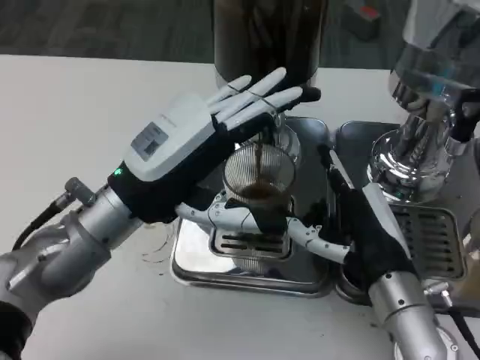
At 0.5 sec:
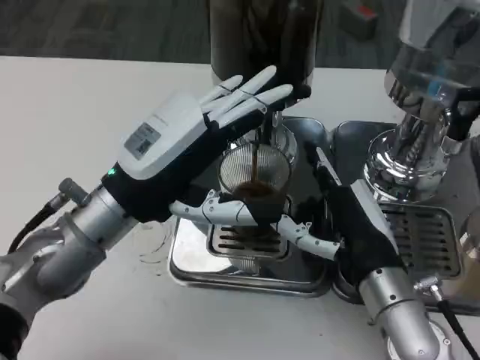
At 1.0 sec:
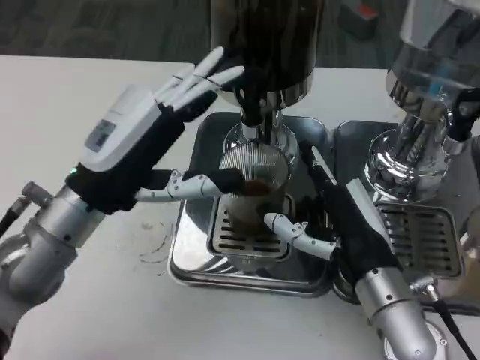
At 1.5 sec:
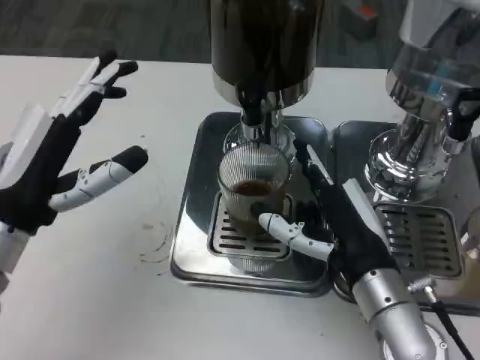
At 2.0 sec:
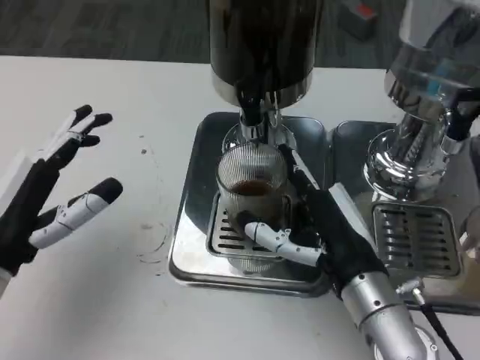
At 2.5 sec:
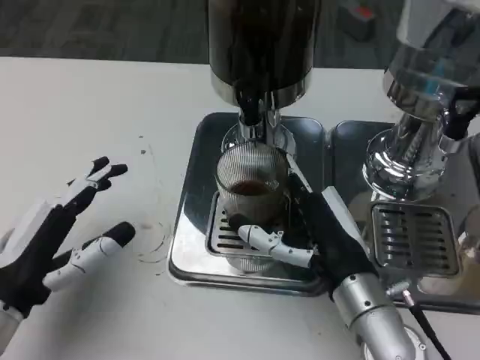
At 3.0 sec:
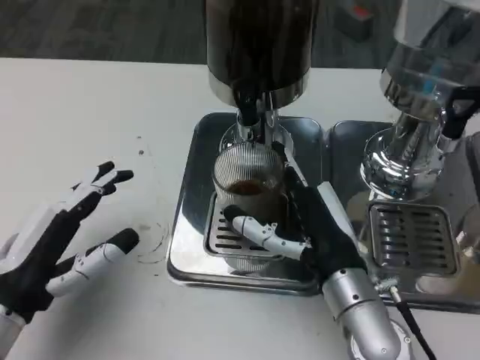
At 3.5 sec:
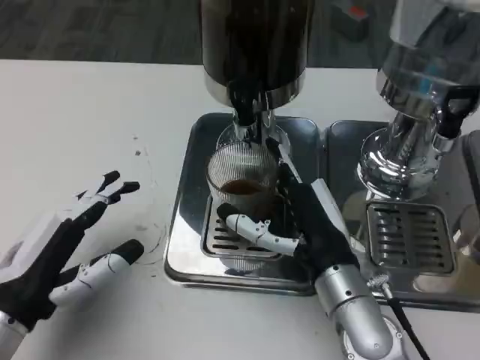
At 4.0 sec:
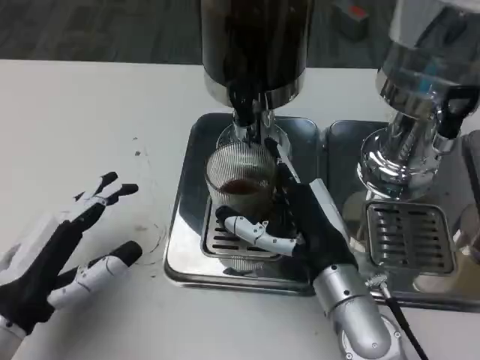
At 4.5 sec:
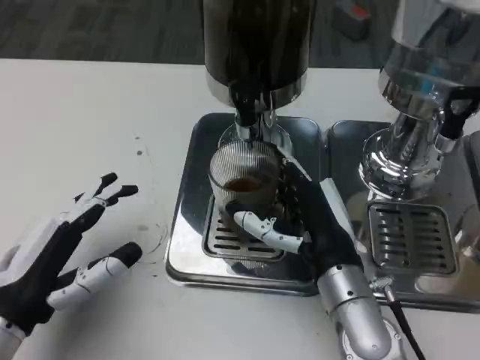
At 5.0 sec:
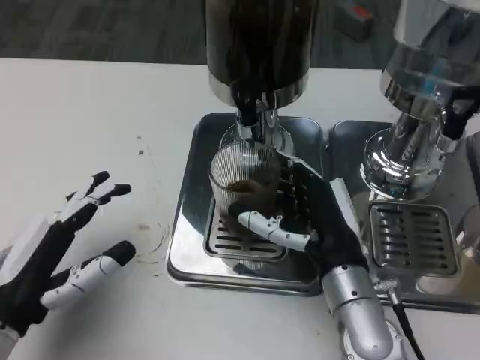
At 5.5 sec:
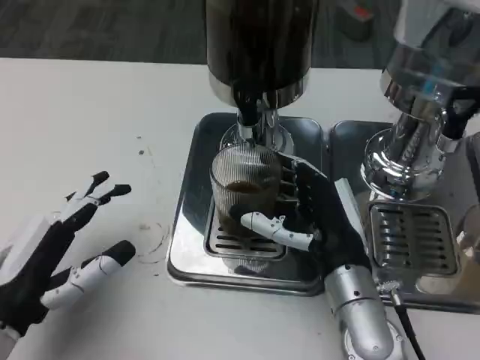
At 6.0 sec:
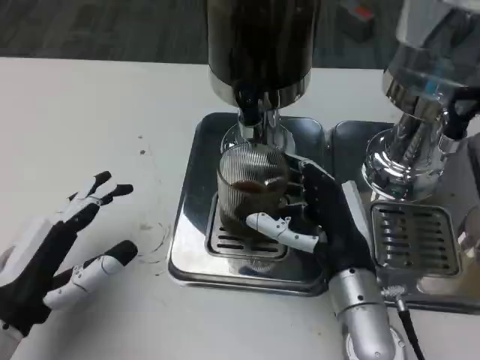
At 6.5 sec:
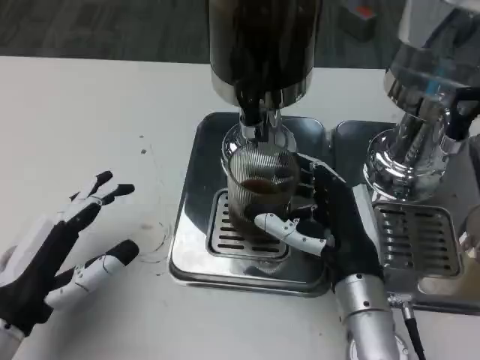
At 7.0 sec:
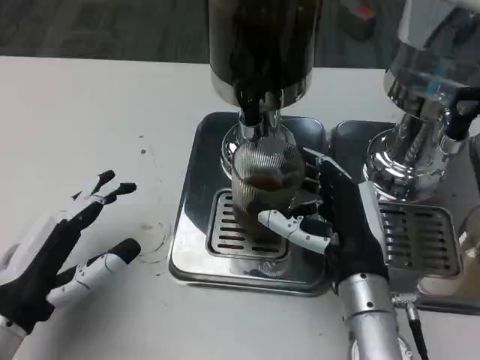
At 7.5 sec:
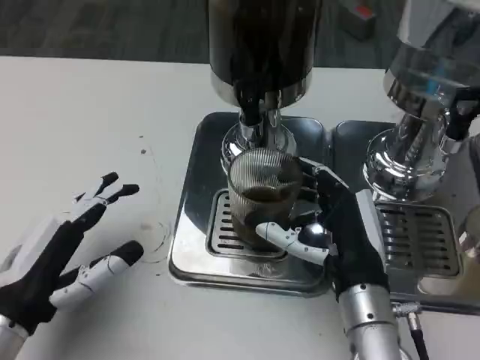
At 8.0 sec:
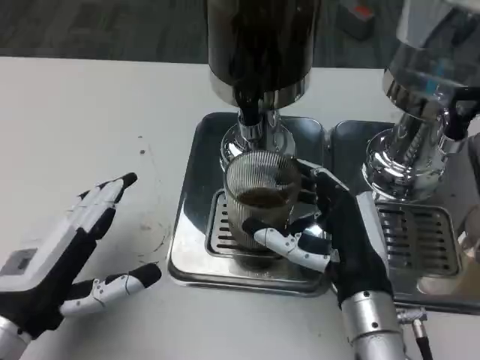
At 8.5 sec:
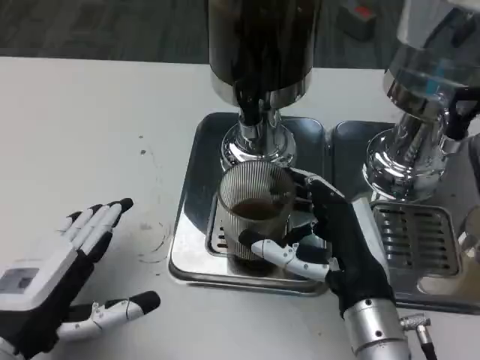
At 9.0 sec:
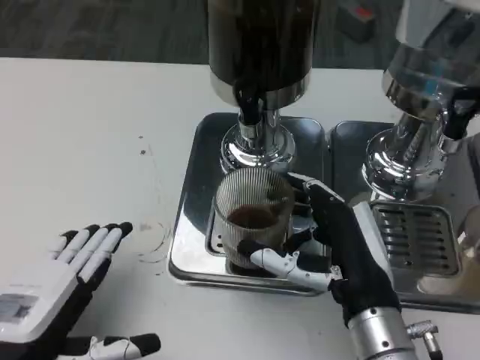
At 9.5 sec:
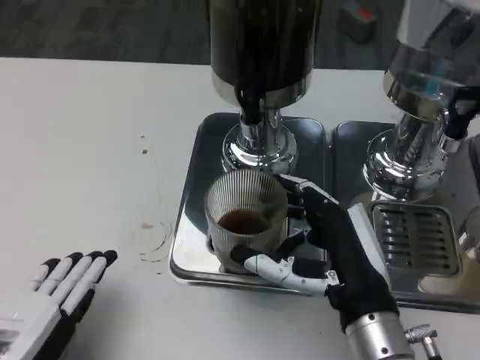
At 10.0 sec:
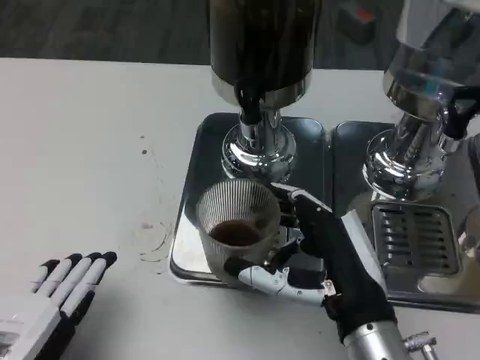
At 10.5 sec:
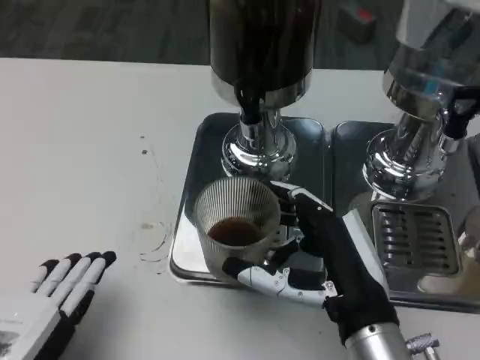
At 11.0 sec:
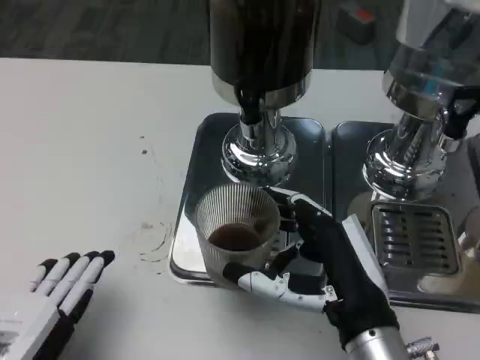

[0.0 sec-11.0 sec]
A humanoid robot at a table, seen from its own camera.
Task of the whole recording: Grasp the cup under the faucet to collect the drink, then remove the cup.
0.0 sec to 2.0 sec: The left hand heads to the left and backward, covering about 10 cm.
3.5 sec to 7.5 sec: The hands make only small movements.
7.5 sec to 9.0 sec: The left hand moves backward, roughly 5 cm.

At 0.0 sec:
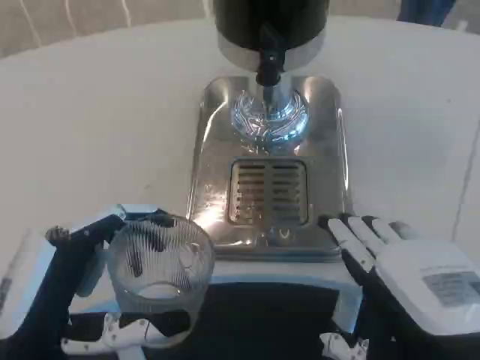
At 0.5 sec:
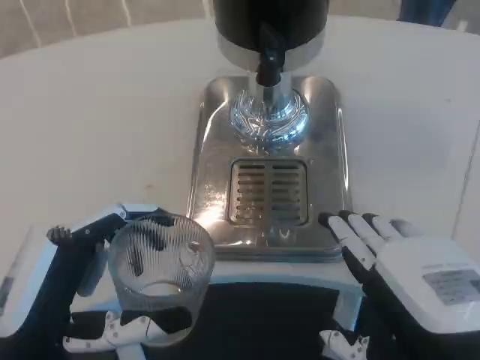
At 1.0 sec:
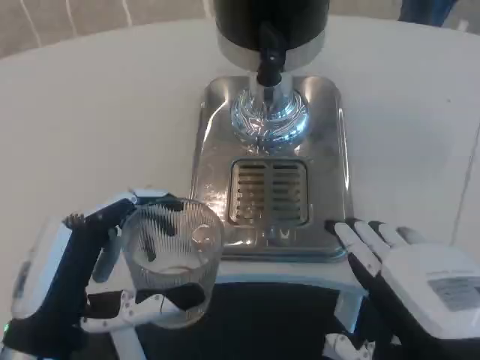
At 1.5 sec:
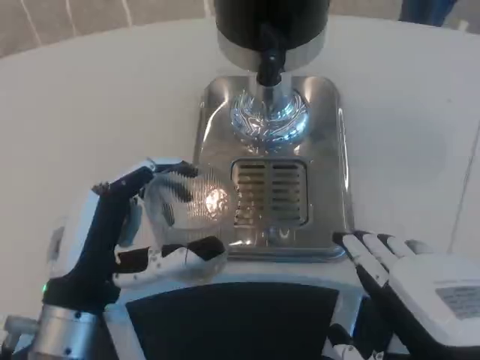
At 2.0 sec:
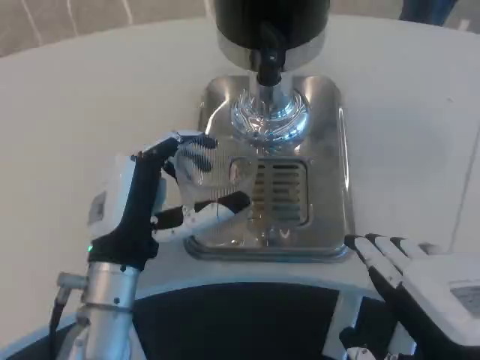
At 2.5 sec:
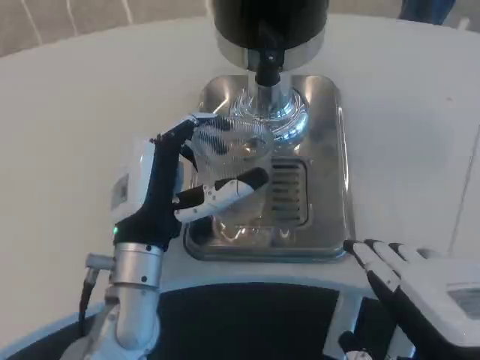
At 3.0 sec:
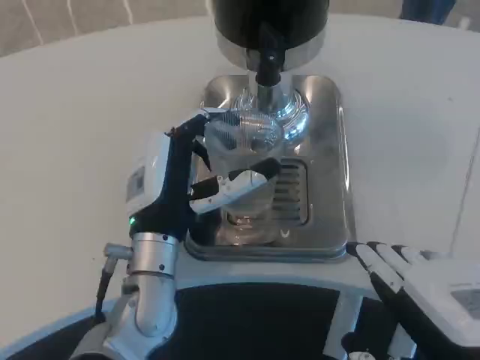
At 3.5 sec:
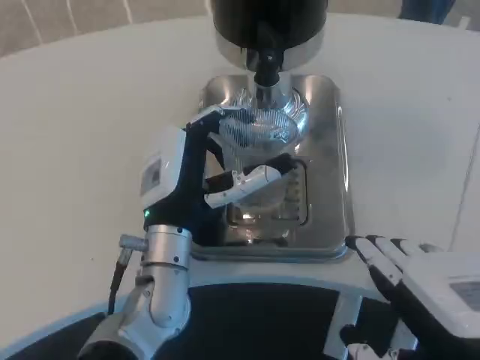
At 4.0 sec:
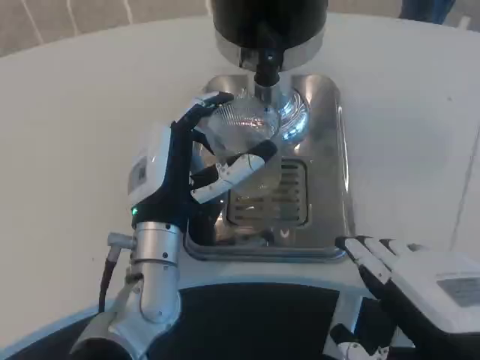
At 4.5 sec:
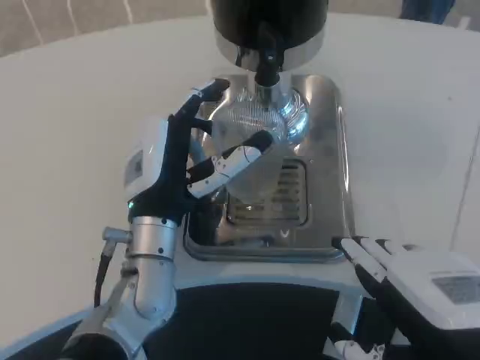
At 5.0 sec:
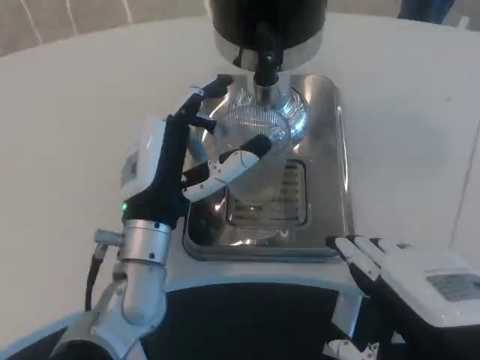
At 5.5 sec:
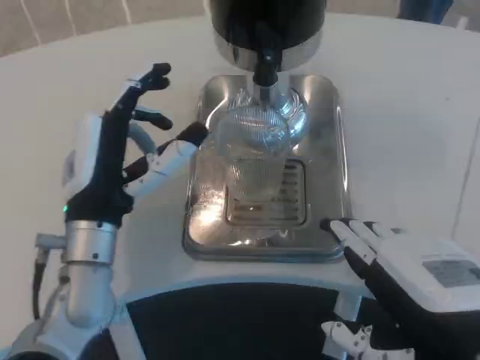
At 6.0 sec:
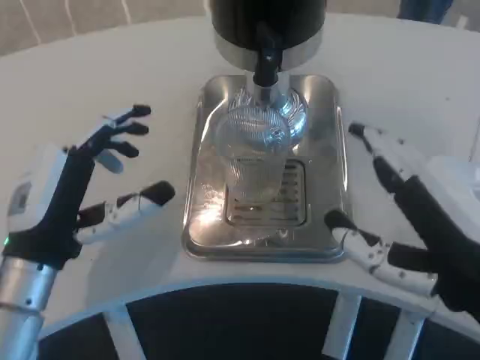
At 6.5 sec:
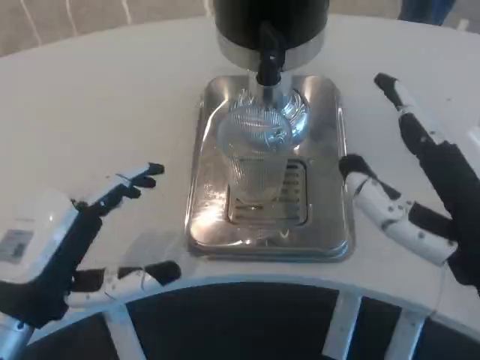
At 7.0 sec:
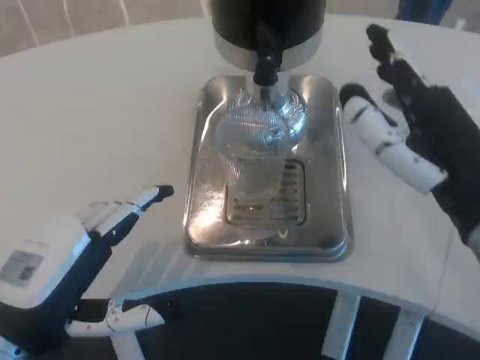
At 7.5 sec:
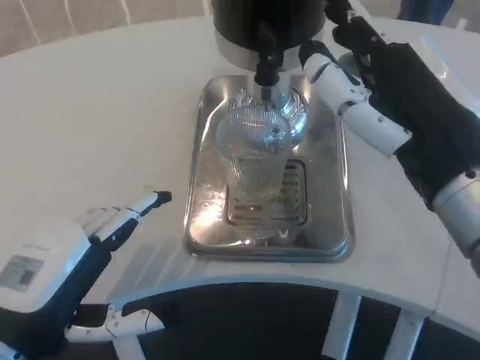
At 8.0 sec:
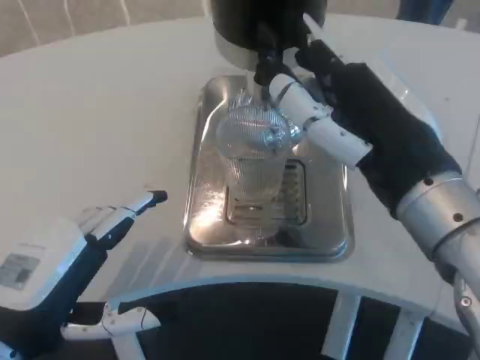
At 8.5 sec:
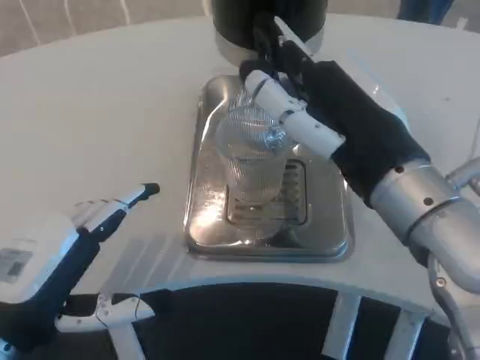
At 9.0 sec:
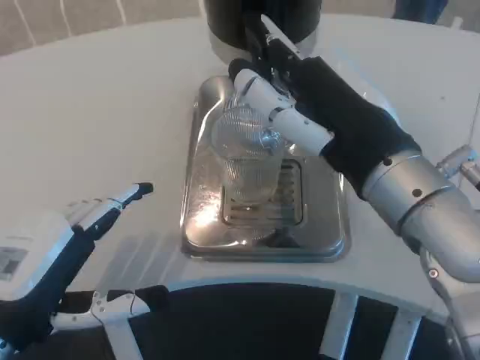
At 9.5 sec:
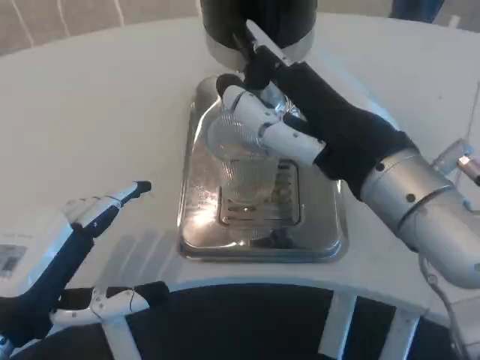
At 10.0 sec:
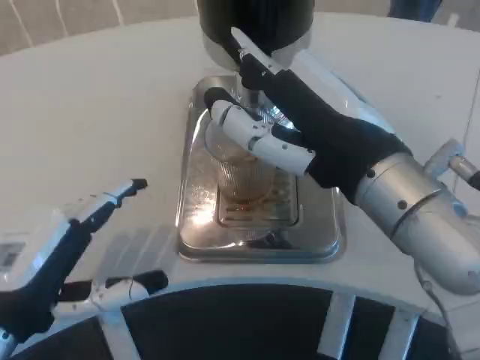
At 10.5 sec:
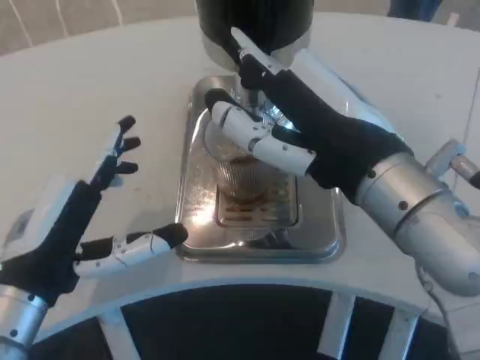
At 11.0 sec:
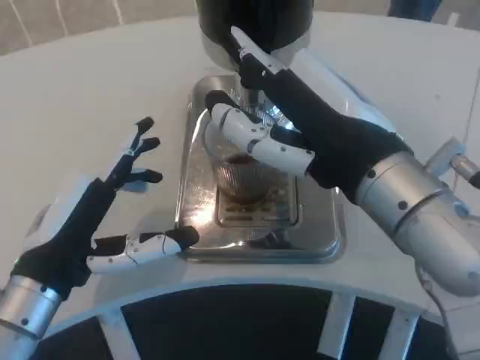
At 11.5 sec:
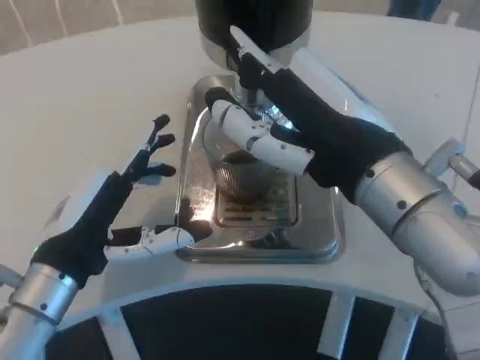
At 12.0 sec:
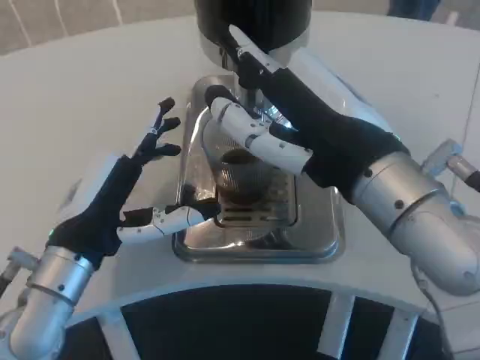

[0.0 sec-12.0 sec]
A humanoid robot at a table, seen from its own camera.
Task of the whole recording: Grasp the cup under the faucet to collect the drink, then remove the cup.
0.0 sec to 2.0 sec: The left hand moves forward and to the right, about 15 cm.
2.0 sec to 4.0 sec: The left hand moves approximately 5 cm.
4.0 sec to 6.0 sec: The left hand shifts approximately 15 cm to the left and backward.
6.0 sec to 8.0 sec: The left hand moves backward, some 5 cm. Meanwhile the right hand moves forward, some 5 cm.
10.0 sec to 12.0 sec: The left hand moves forward, roughly 5 cm.

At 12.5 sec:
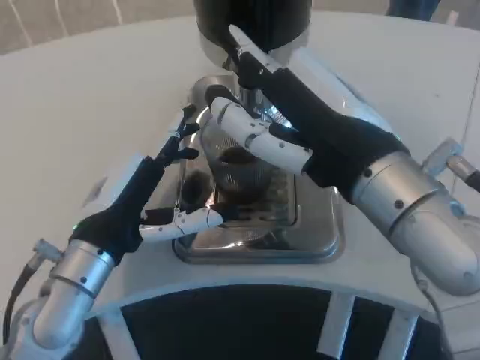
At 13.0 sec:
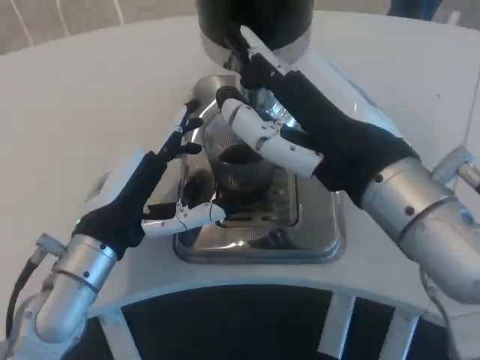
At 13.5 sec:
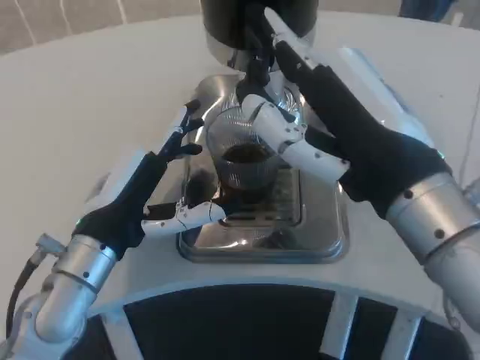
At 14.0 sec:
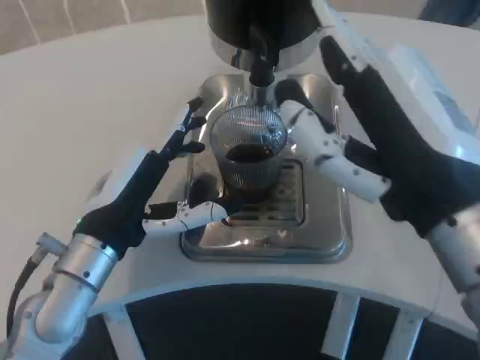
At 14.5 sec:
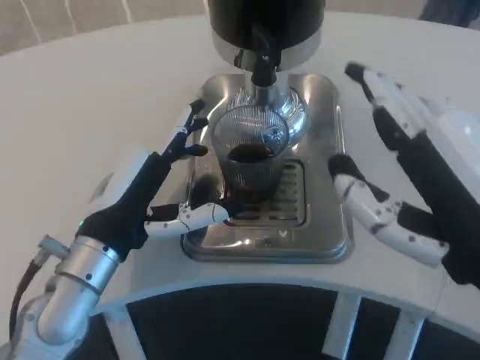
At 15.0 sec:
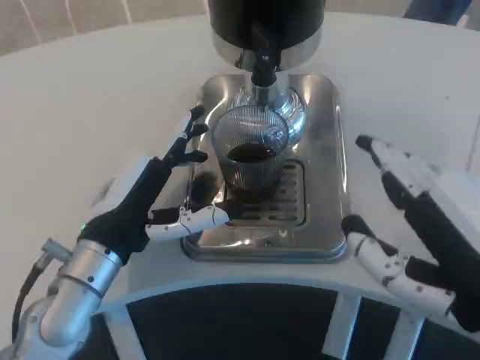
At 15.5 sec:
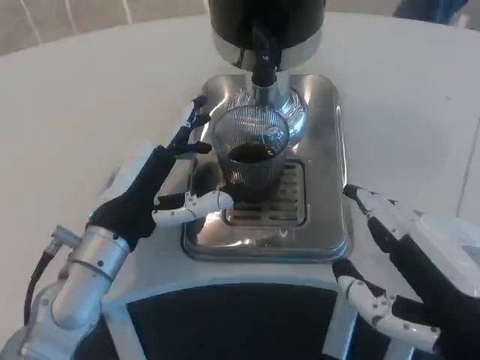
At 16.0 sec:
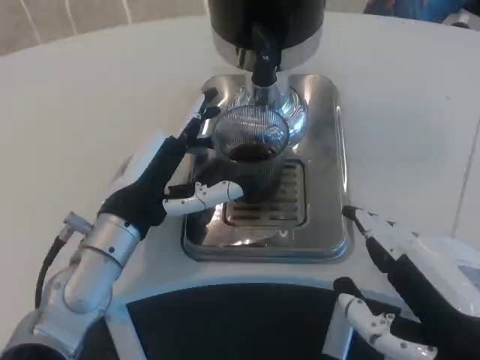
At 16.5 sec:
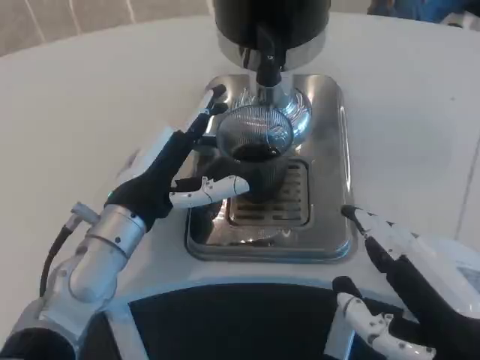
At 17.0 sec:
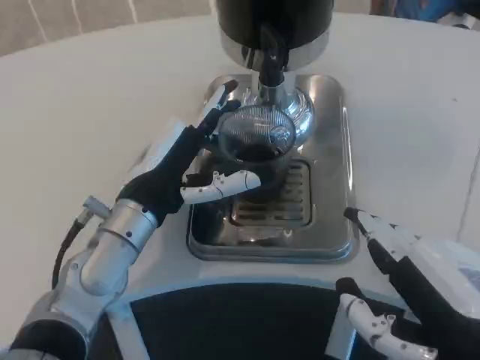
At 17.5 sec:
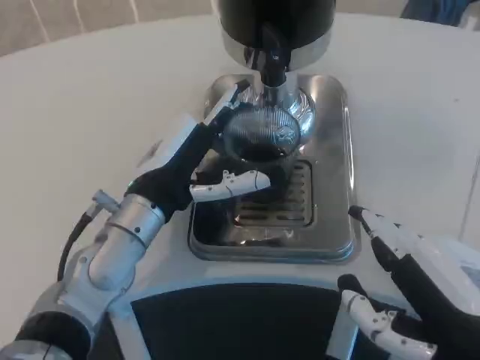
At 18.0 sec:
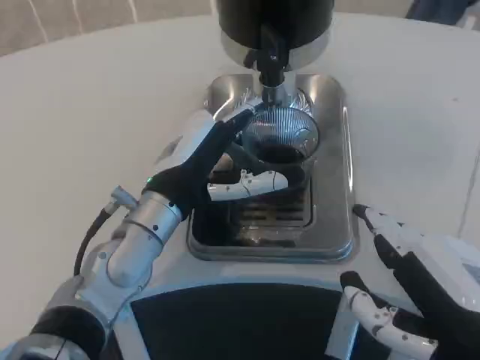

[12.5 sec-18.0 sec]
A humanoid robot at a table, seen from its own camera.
Task of the whole recording: Grasp the cup under the faucet to collect the drink, then remove the cup.
12.5 sec to 14.5 sec: The right hand travels backward and to the right by approximately 10 cm.
